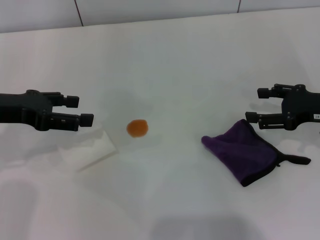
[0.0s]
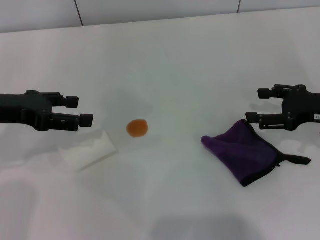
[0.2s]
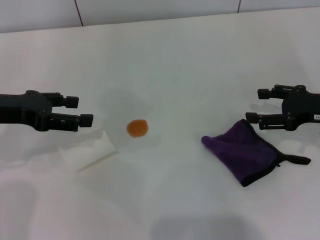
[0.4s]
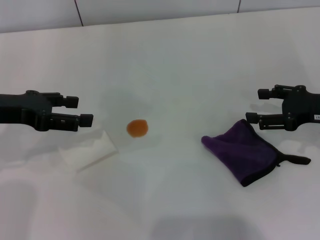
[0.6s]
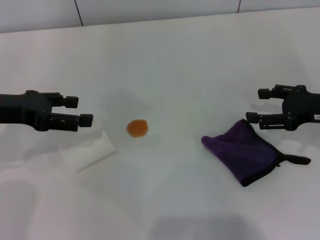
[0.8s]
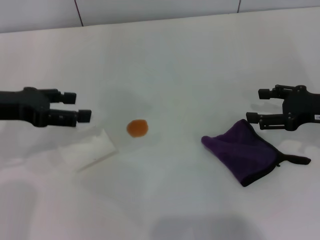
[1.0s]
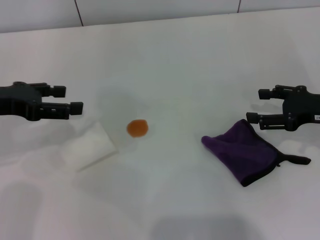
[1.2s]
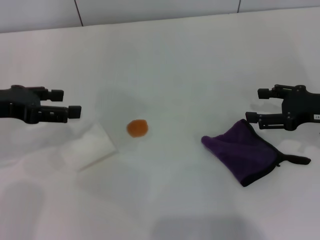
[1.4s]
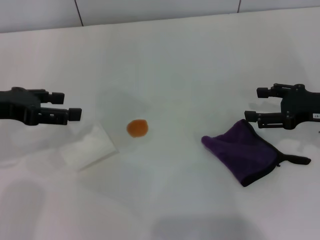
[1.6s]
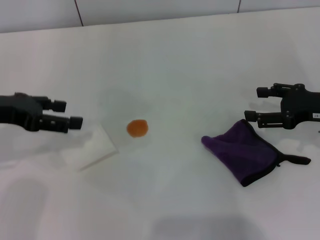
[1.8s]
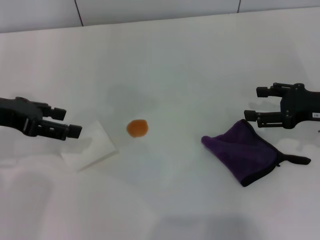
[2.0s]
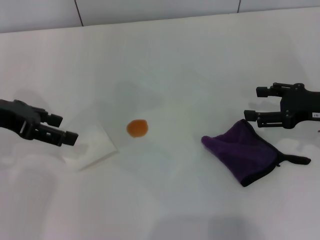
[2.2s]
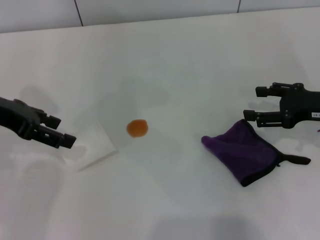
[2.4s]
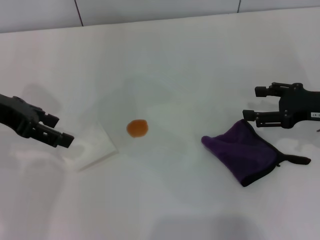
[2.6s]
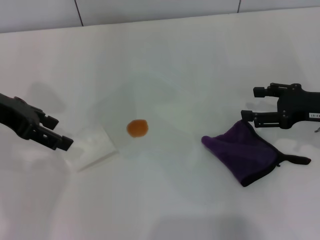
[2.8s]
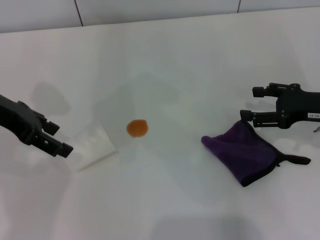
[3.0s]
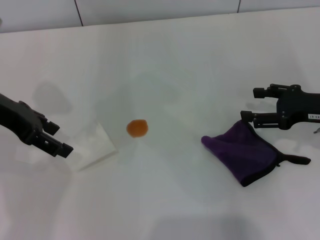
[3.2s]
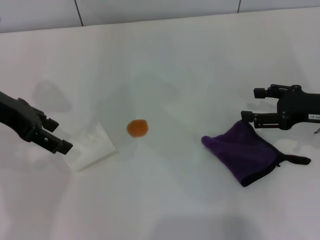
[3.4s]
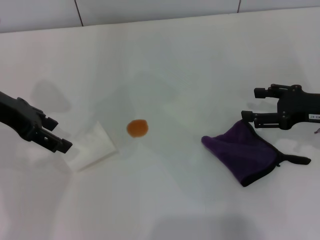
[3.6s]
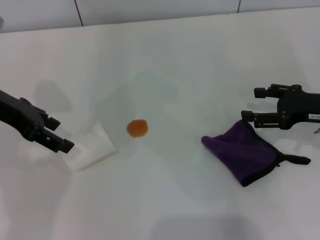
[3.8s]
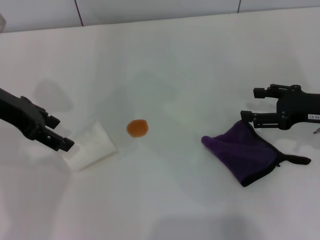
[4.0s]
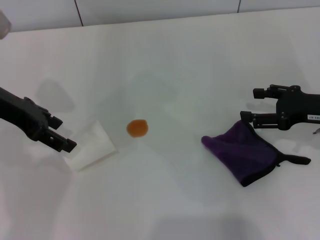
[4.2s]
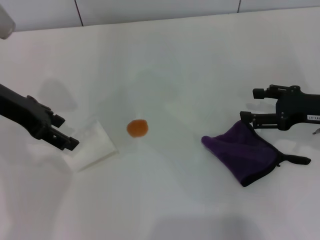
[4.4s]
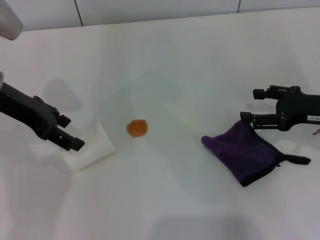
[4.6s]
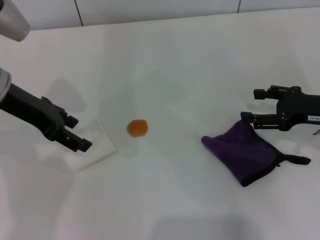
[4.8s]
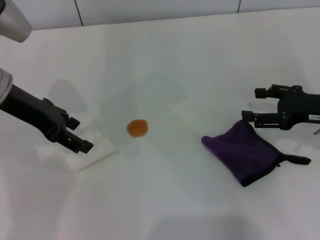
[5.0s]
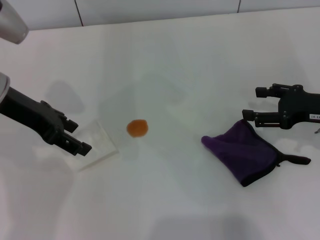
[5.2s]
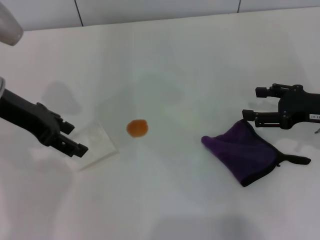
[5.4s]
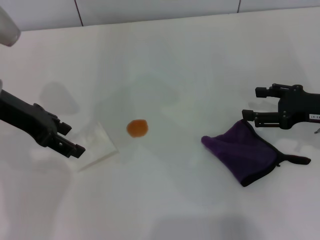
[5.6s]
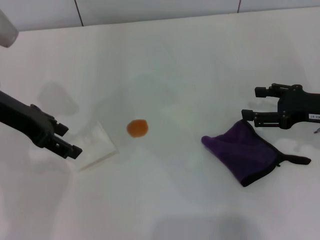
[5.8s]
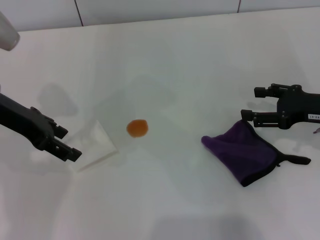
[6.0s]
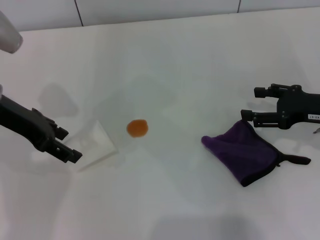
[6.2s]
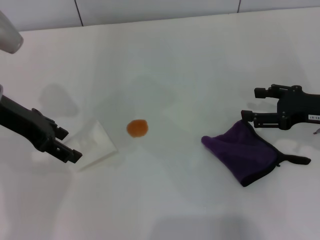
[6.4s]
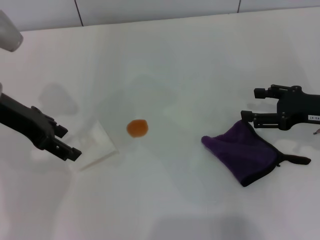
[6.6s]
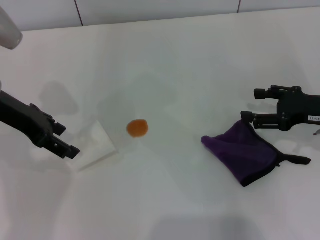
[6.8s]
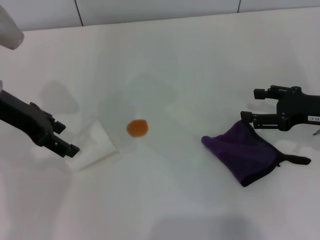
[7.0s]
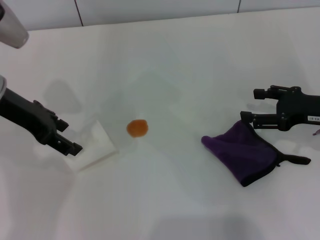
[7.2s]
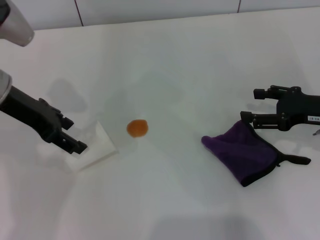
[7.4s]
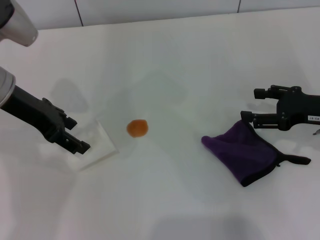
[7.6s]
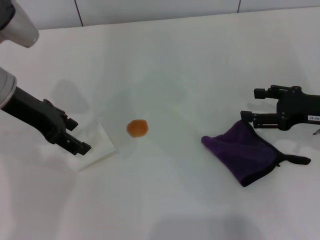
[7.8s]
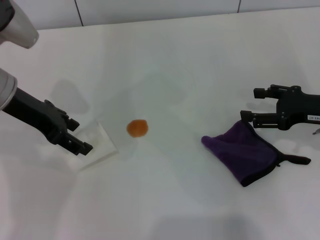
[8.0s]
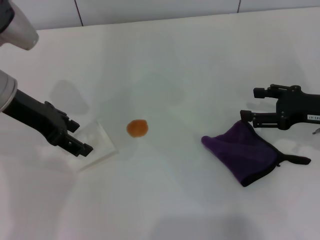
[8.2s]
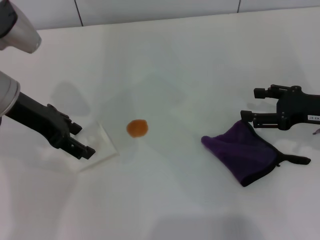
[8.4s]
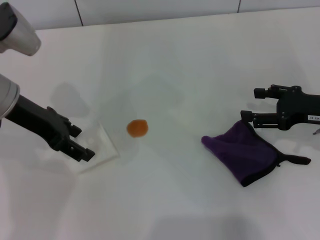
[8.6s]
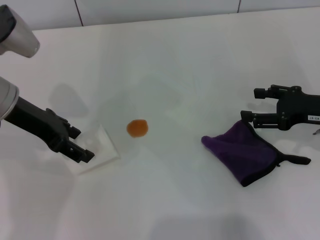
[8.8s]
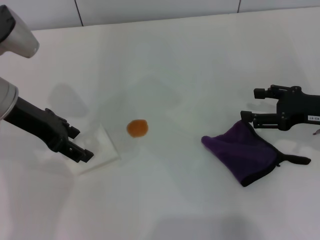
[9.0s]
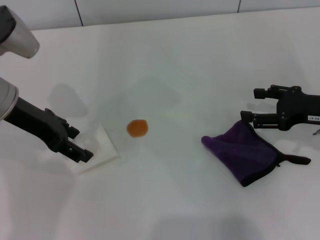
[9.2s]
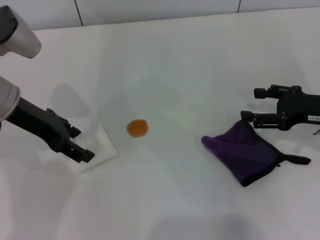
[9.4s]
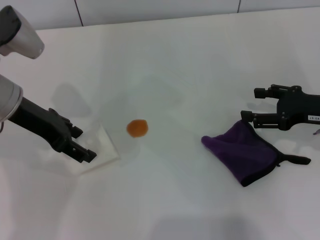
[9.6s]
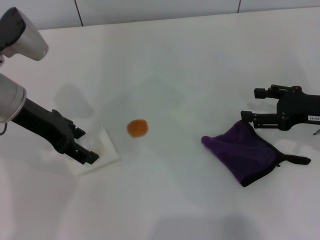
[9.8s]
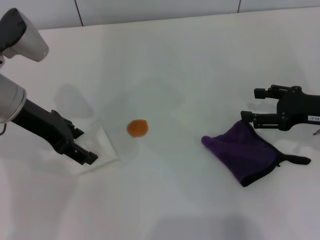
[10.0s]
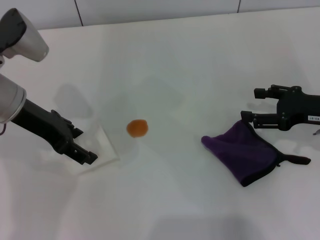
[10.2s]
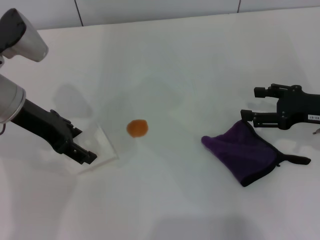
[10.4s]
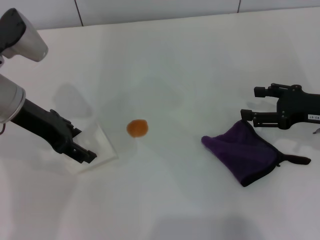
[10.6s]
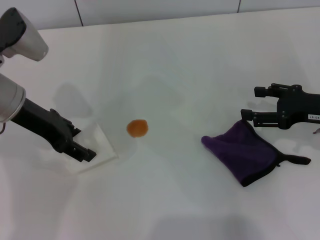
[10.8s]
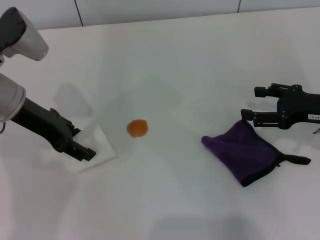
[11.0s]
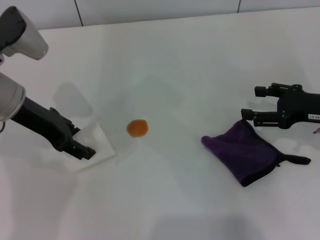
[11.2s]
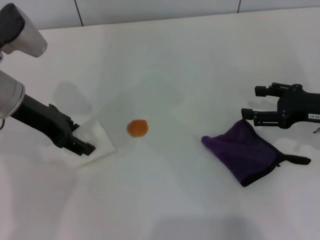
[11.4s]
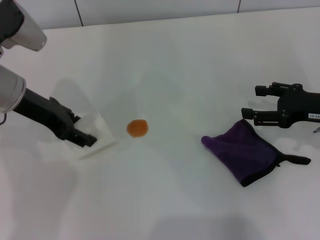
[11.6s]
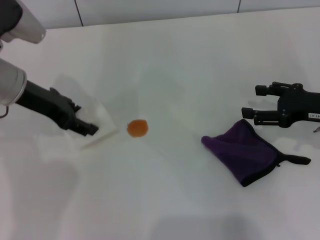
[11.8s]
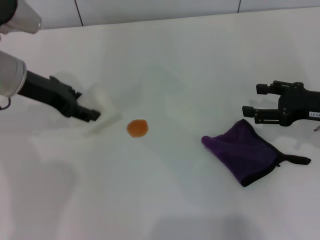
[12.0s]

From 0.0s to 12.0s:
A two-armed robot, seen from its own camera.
Step, from 0.0s to 10.8s: Grasp the paper cup with the left gripper.
From 0.0s to 1.6s: The grippers stay close to where they were, moving slightly.
From 1.6s to 3.0s: The left gripper shifts by about 5 cm.
From 3.0s to 9.0s: The grippers stay close to where they were, moving slightly.
From 9.0s to 10.4s: The two grippers keep their place.
From 10.4s to 12.0s: The left gripper closes up.

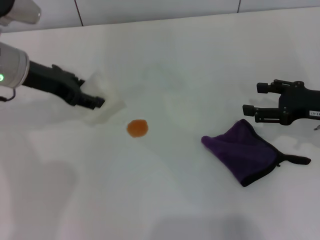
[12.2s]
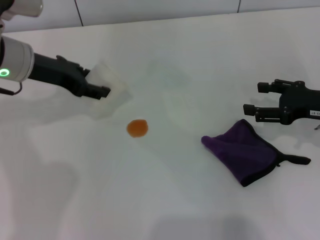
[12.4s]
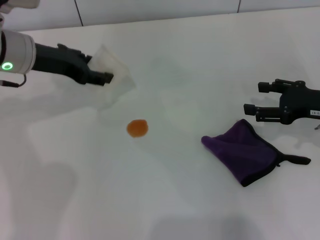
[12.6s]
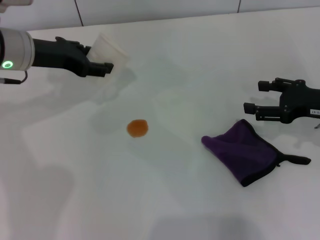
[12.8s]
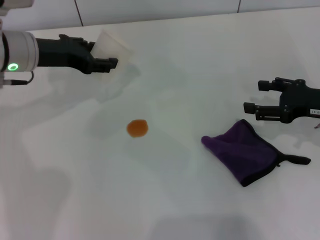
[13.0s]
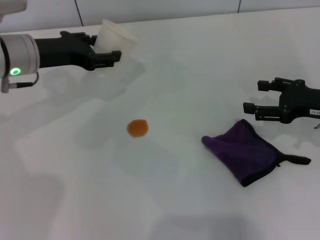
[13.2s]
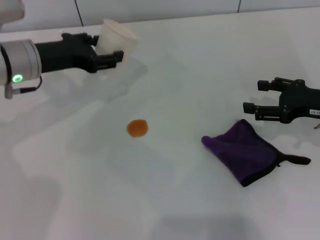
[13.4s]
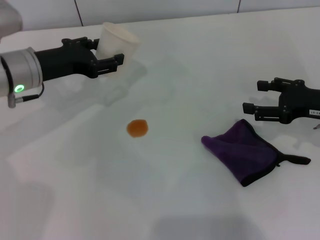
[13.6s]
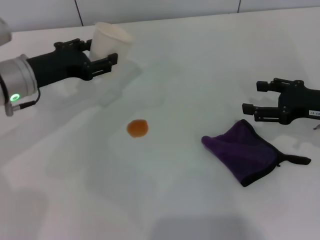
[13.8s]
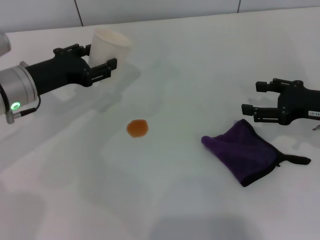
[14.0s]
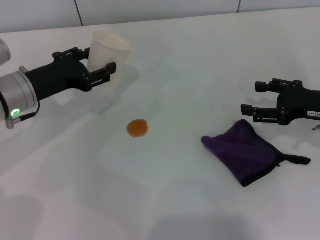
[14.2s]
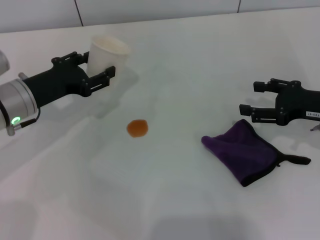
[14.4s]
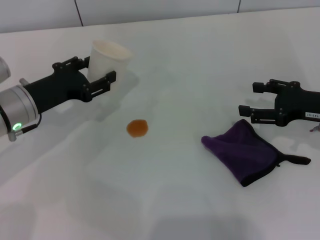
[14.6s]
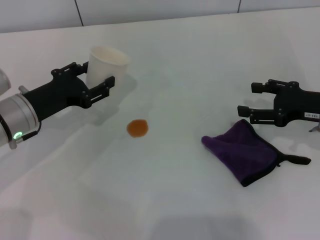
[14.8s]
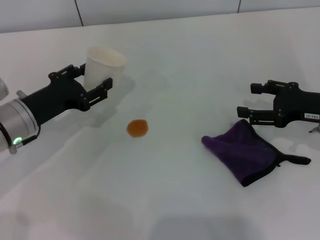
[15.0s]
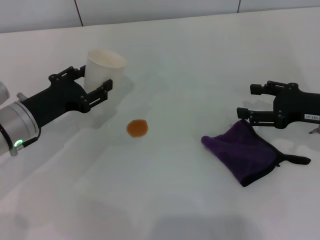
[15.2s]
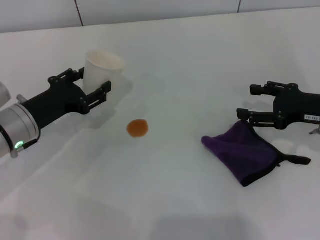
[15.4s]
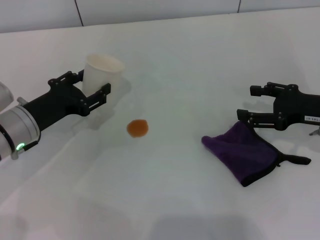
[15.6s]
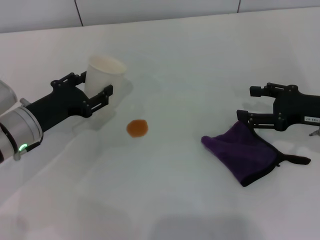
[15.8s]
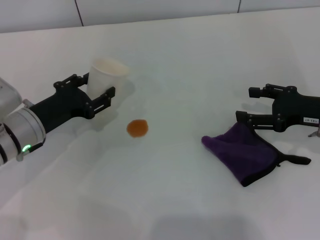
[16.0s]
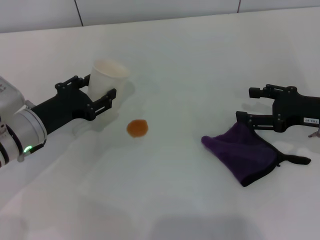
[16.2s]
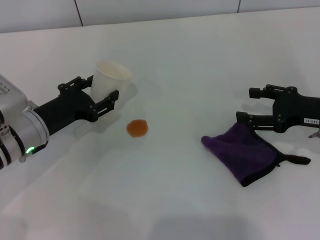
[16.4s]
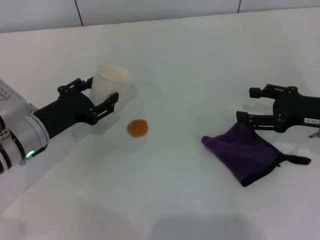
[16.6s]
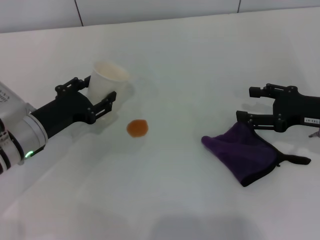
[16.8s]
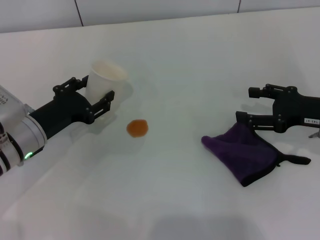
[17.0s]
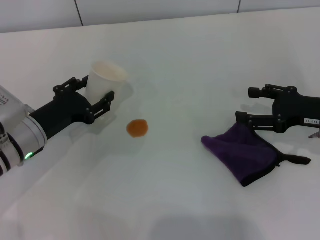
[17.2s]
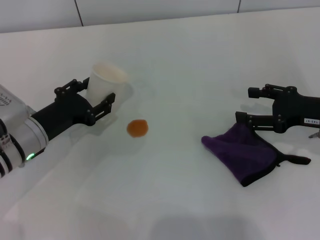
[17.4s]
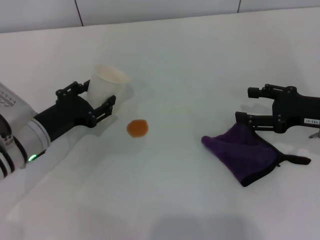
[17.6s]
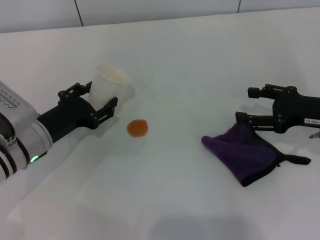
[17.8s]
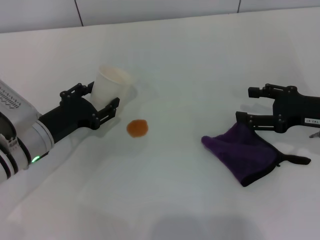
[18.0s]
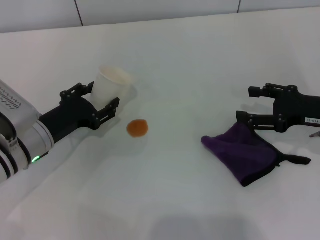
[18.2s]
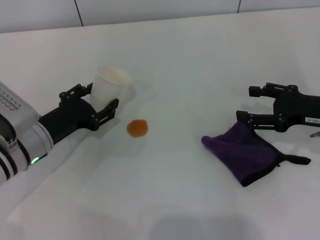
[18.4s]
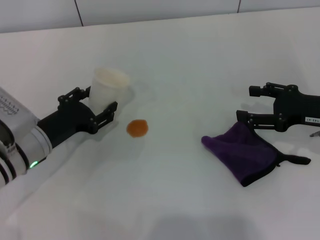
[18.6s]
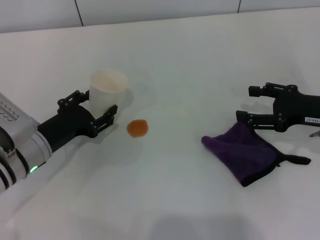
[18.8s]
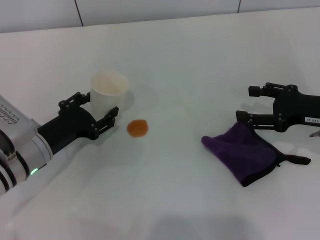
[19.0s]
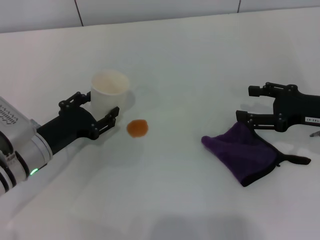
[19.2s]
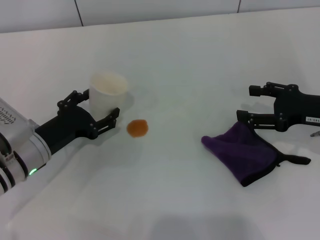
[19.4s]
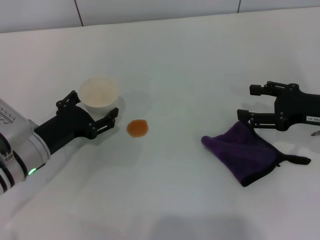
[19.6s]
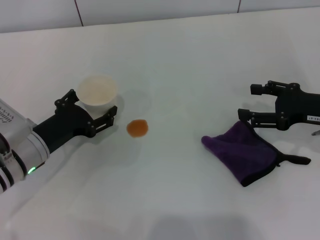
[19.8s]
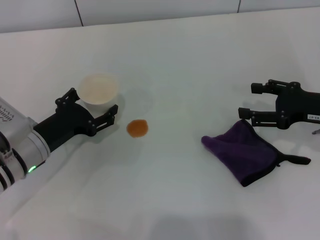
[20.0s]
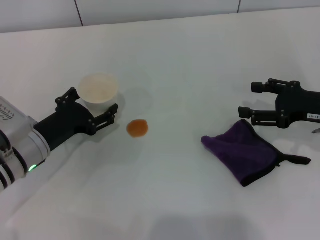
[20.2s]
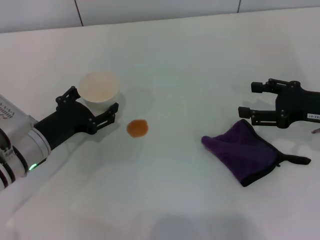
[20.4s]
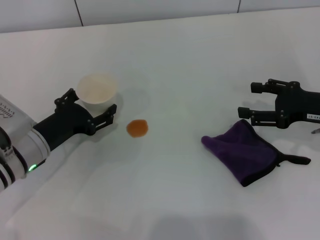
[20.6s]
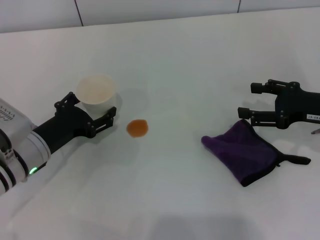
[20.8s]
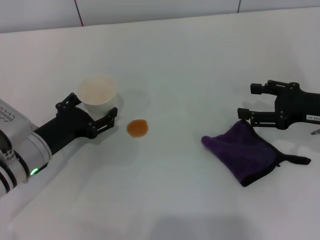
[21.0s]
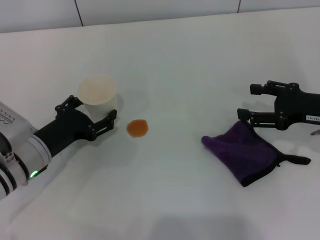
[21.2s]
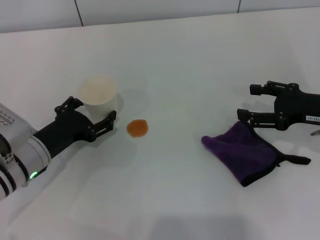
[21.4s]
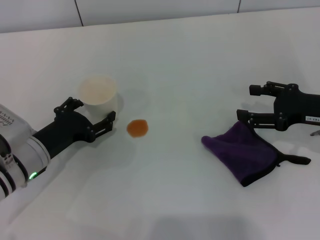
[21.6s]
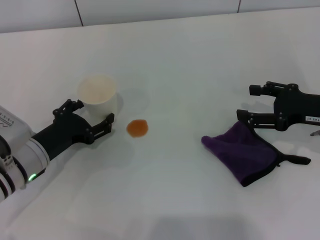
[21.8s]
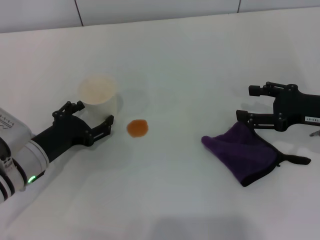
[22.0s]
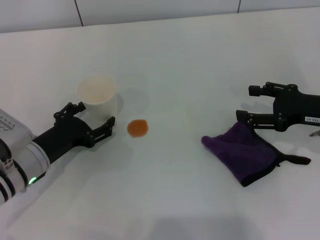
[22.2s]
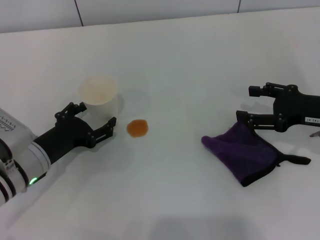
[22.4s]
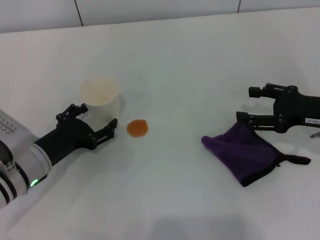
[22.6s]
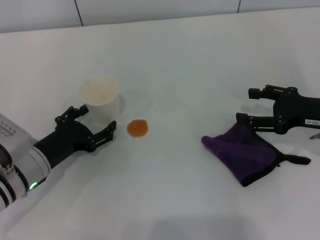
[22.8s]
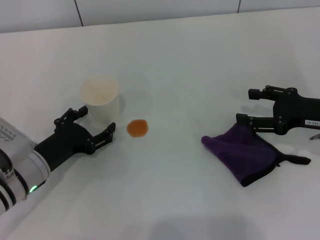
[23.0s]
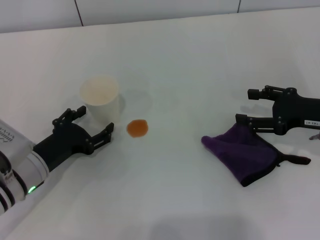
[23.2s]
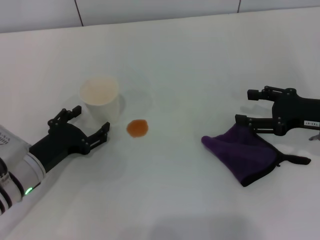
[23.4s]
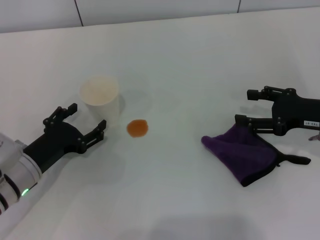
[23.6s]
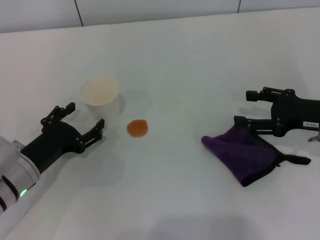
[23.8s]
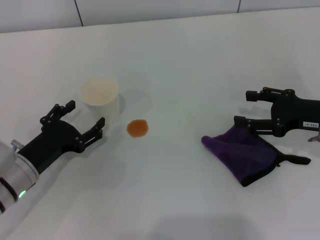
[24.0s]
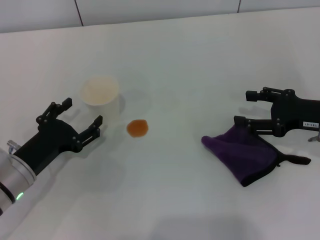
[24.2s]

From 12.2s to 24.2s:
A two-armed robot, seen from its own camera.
Step, from 12.2s to 24.0s: Stand the paper cup upright with the left gripper.
From 12.2s to 13.8s: The left gripper shifts by approximately 5 cm.
From 13.8s to 15.2s: The left gripper travels backward by approximately 5 cm.
From 15.2s to 16.6s: The grippers make only small movements.
From 16.6s to 18.2s: Both grippers stay put.
From 18.2s to 19.8s: The left gripper opens.
From 19.8s to 21.2s: Both grippers stay put.
From 21.2s to 22.6s: Neither gripper changes place.
From 22.6s to 24.2s: The grippers make only small movements.
